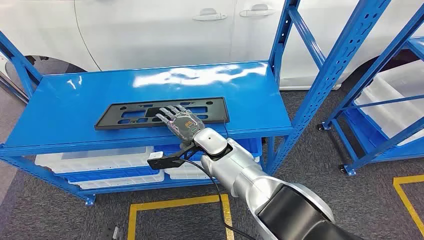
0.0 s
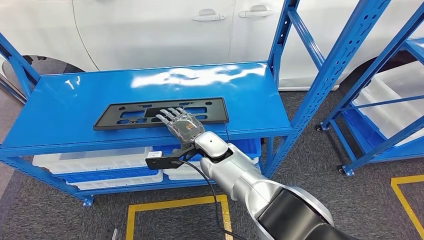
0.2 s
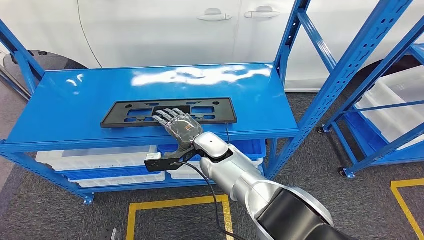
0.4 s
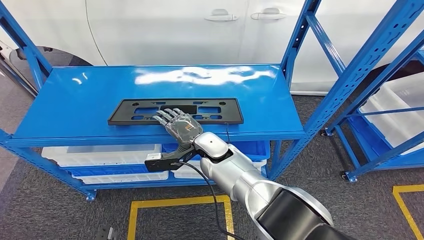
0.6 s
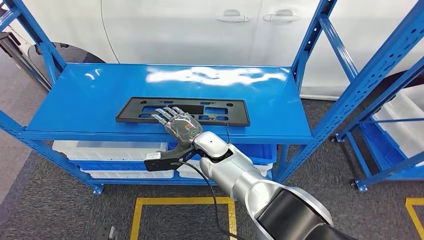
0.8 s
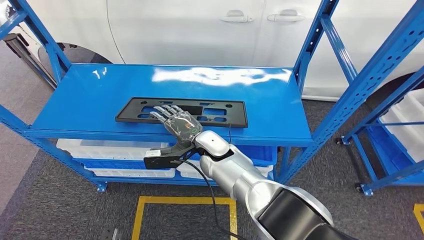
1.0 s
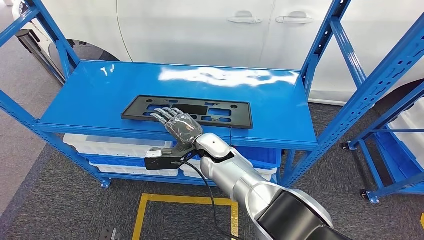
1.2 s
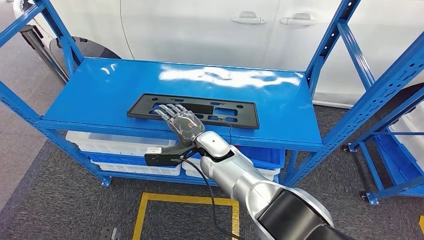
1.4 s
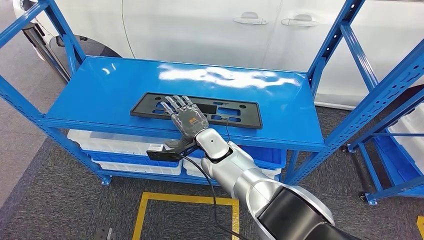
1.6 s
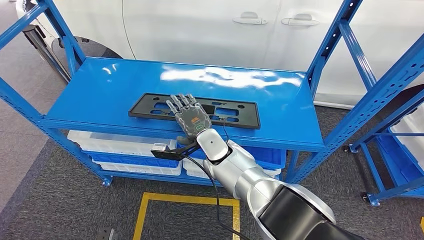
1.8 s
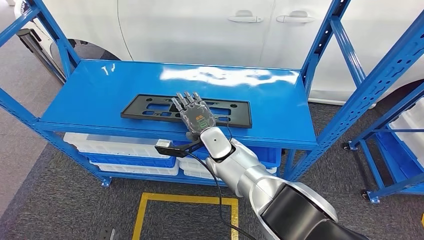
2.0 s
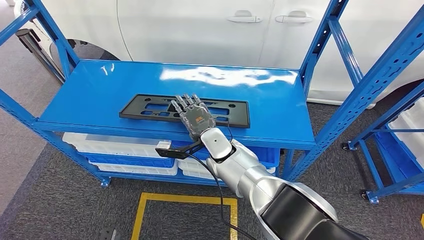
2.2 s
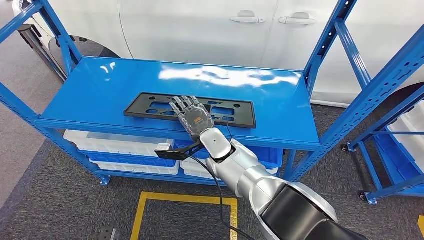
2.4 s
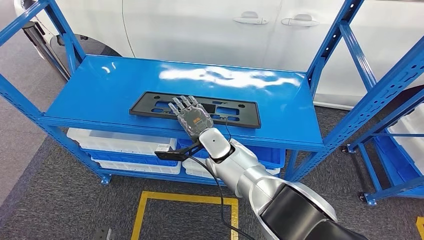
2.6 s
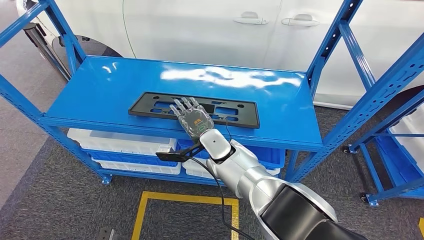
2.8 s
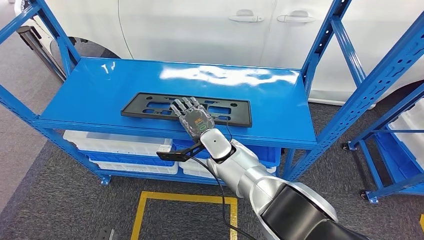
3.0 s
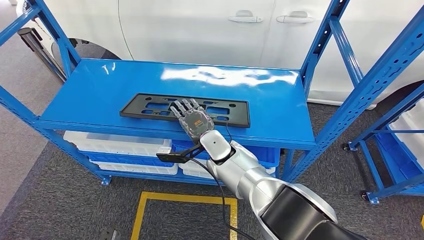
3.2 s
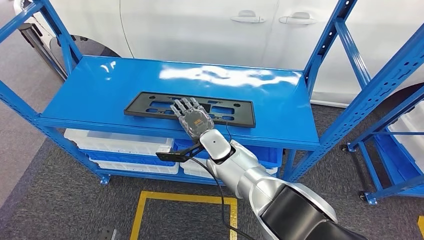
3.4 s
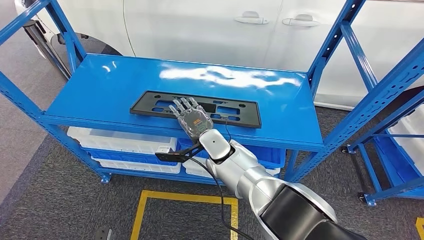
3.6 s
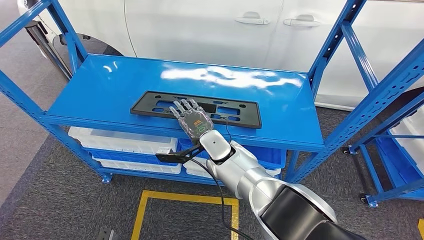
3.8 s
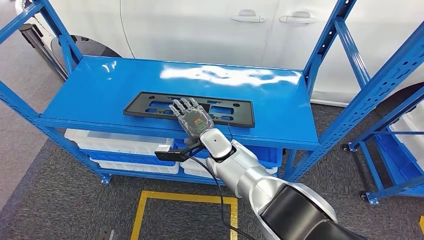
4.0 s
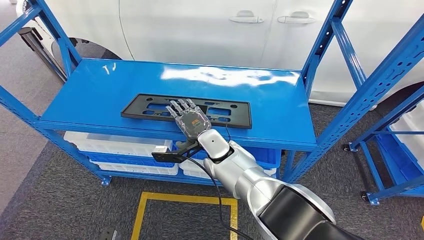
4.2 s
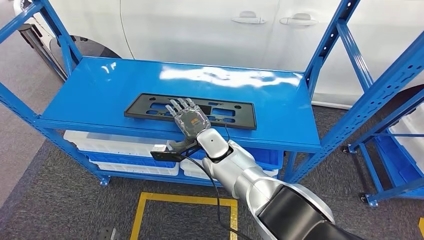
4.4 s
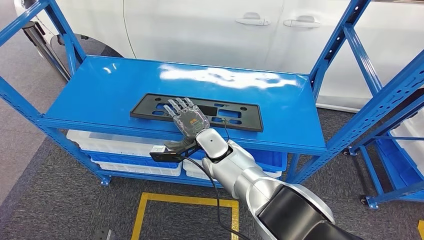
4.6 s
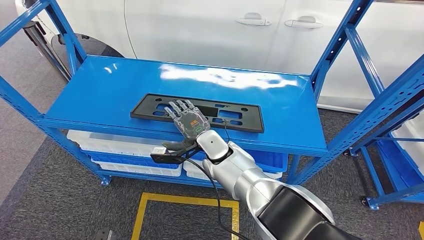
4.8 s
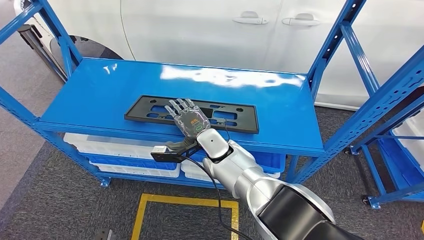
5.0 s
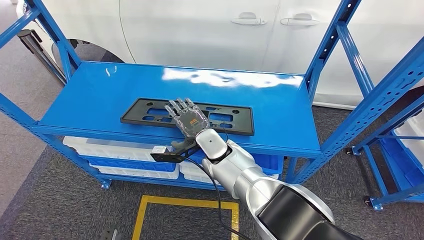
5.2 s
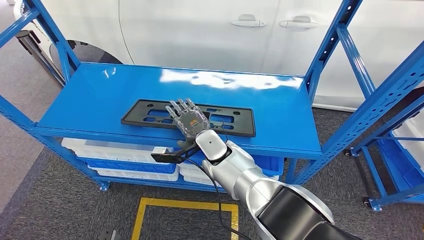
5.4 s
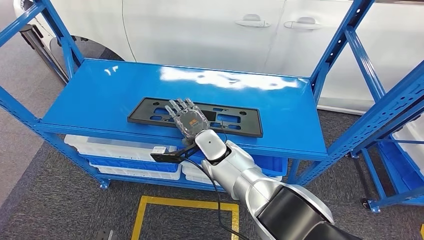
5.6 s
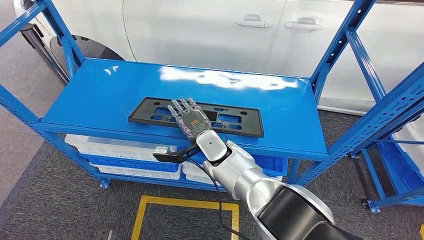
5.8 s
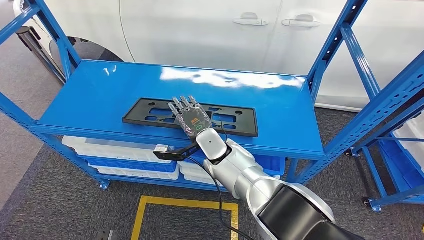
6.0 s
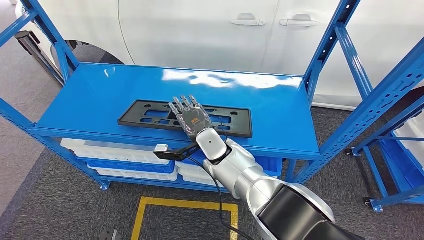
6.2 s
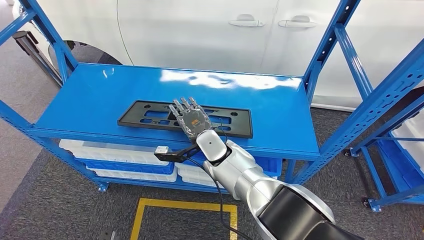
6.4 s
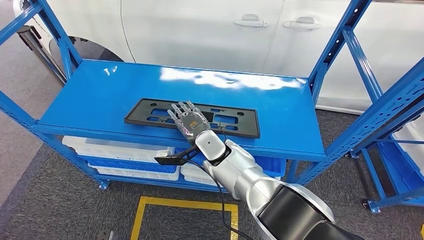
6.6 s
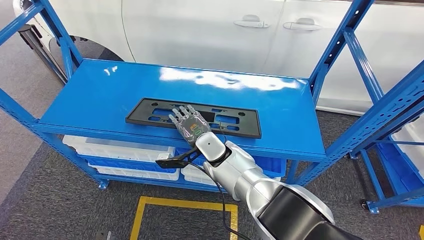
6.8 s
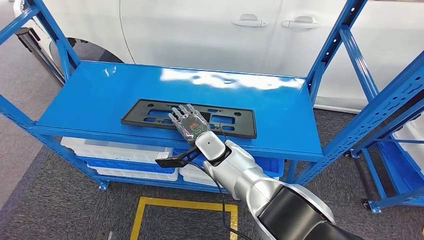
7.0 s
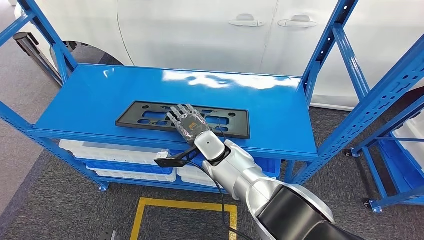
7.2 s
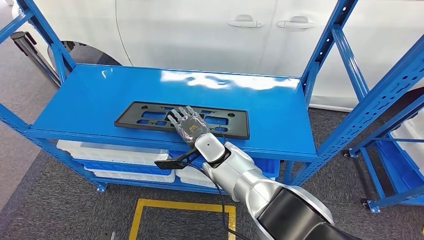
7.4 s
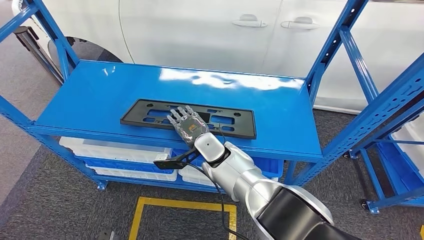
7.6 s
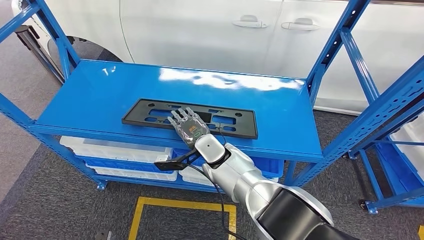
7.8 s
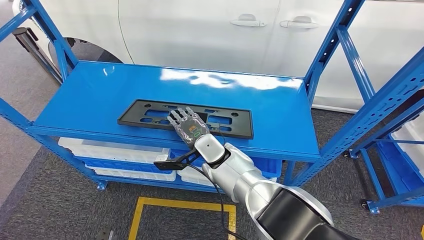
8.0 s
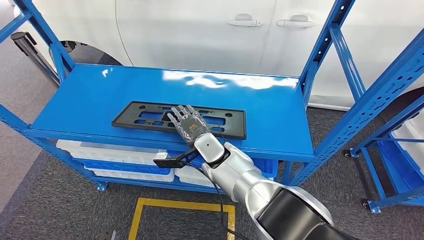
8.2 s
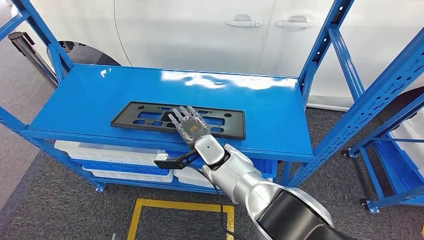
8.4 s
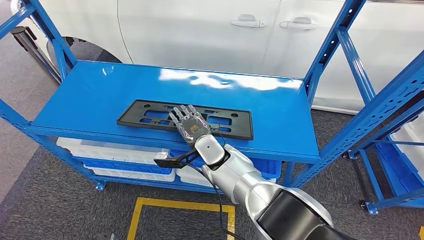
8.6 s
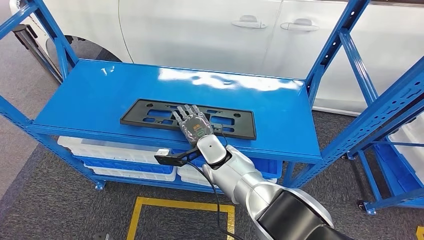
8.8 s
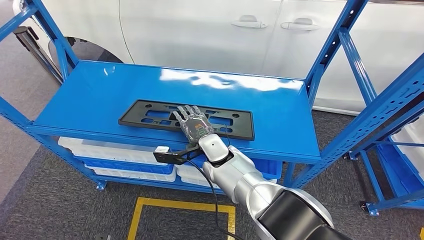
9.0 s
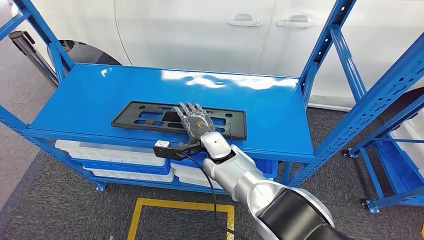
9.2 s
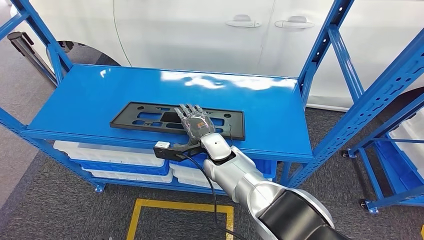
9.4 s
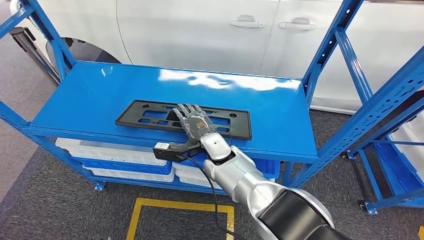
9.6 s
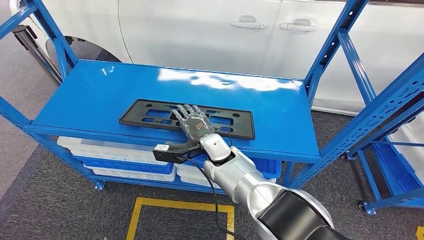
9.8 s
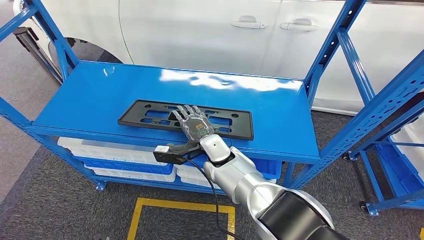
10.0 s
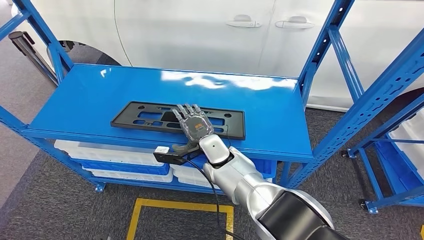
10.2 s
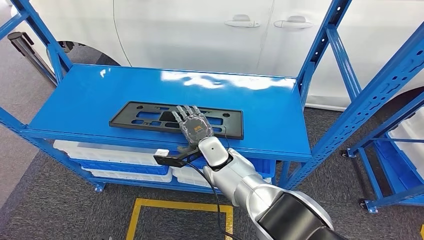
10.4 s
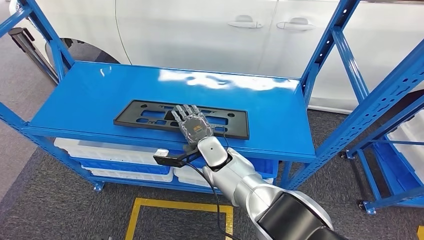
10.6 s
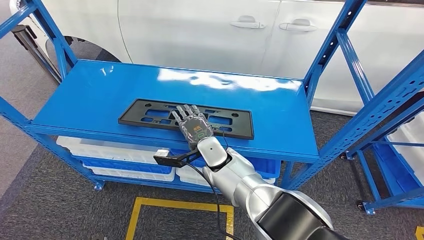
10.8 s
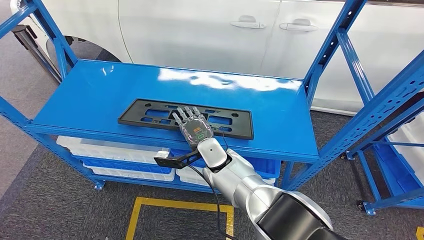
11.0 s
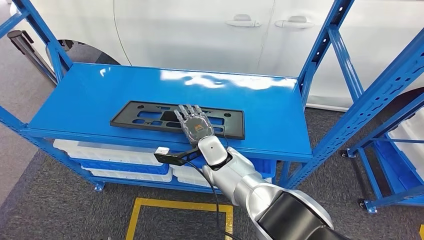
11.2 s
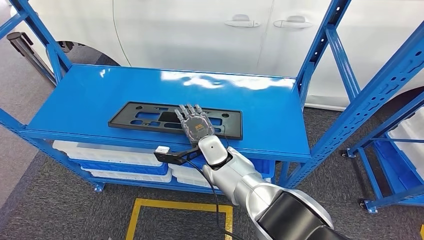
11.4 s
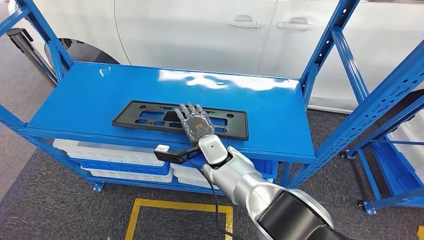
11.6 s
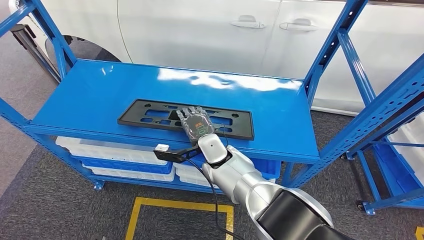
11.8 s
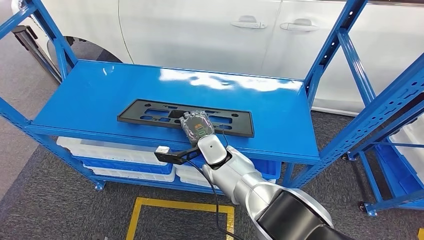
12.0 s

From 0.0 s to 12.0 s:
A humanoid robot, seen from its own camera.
Step, from 0.0 s to 6.2 s: Pick up the large parts from the shelf.
From 3.0 s to 4.4 s: The hands stay close to where they were, moving slightly.
From 6.0 s to 9.0 s: The hands stay close to where they were, moving slightly.

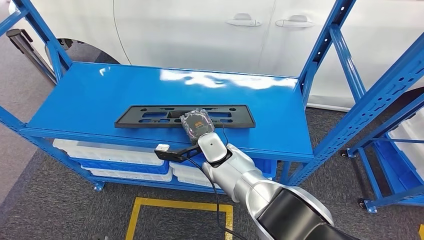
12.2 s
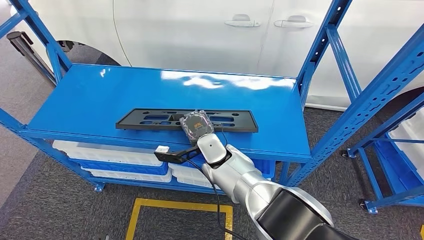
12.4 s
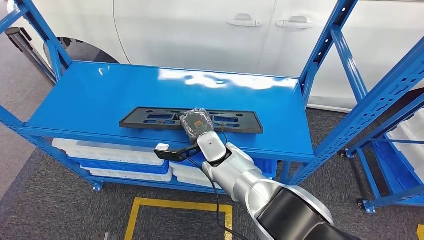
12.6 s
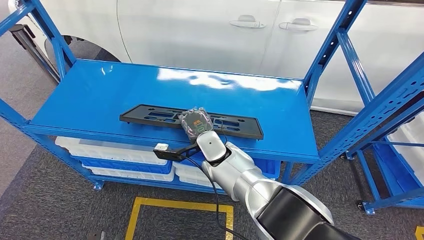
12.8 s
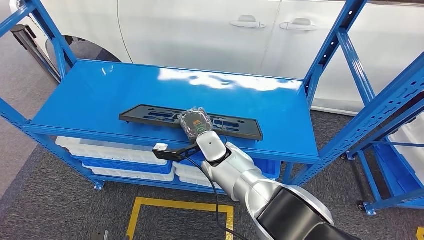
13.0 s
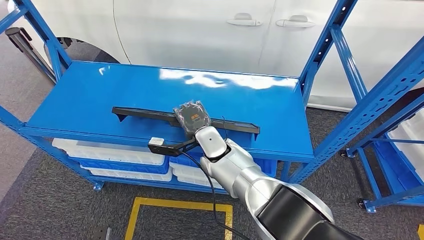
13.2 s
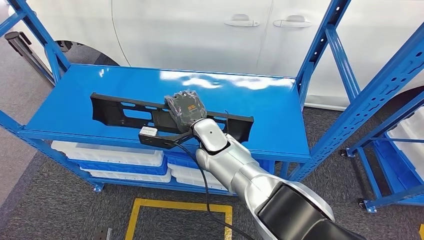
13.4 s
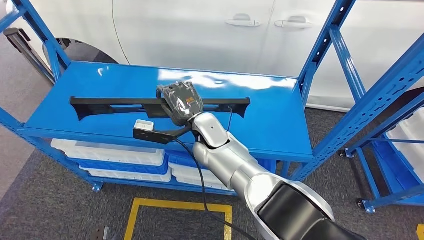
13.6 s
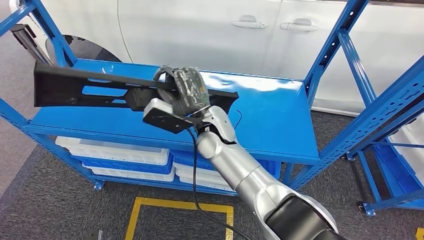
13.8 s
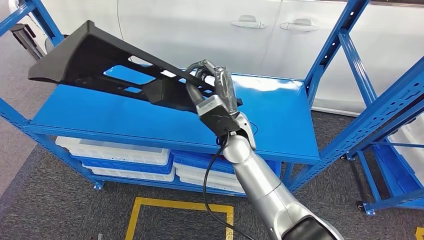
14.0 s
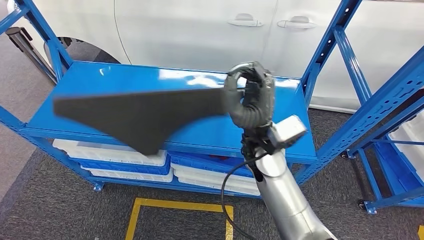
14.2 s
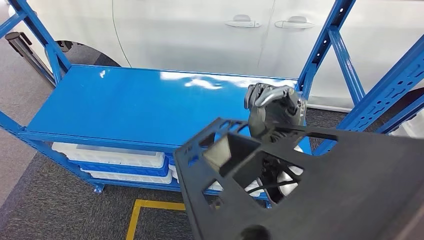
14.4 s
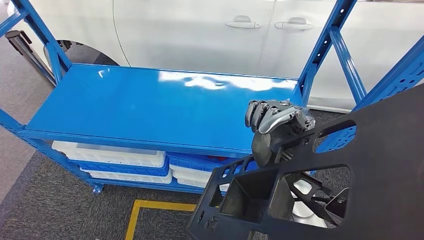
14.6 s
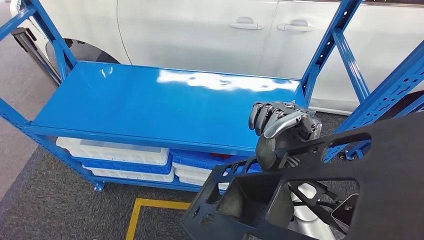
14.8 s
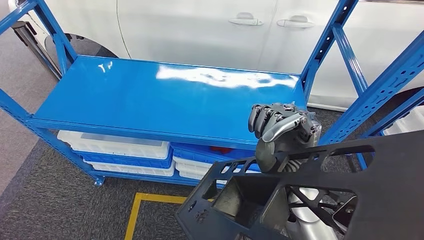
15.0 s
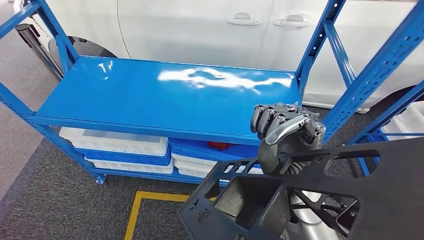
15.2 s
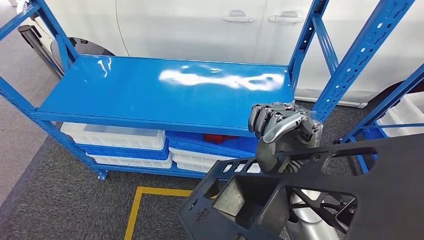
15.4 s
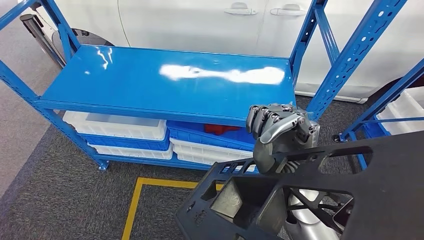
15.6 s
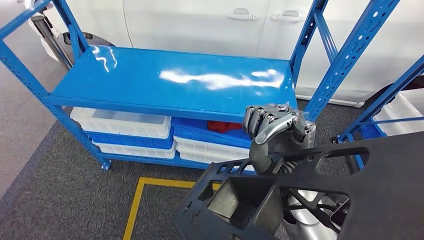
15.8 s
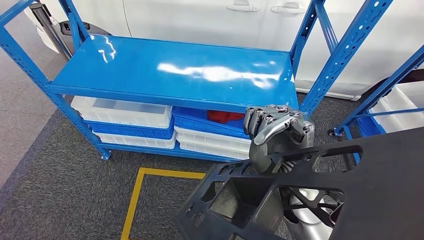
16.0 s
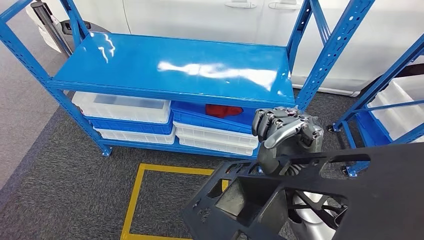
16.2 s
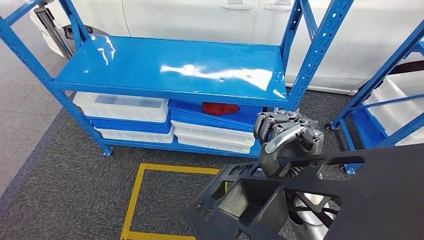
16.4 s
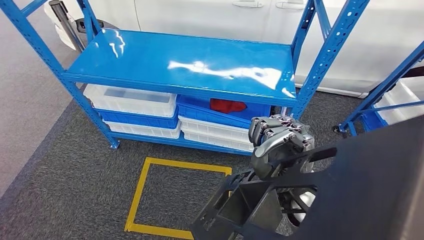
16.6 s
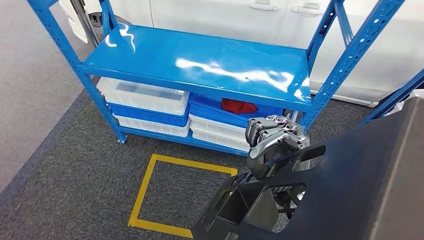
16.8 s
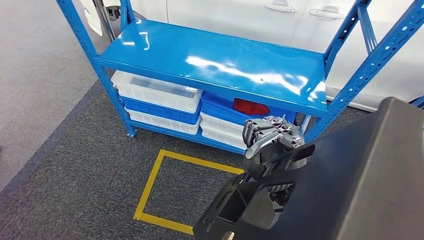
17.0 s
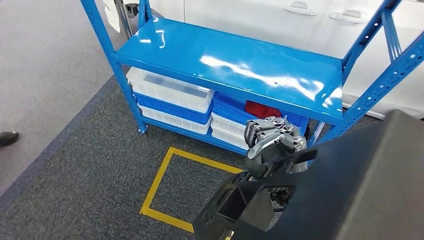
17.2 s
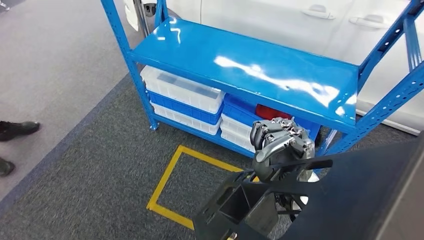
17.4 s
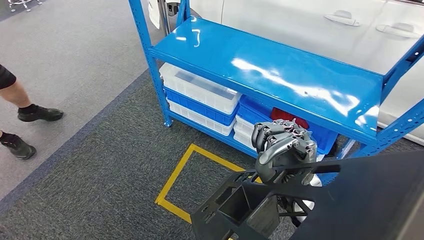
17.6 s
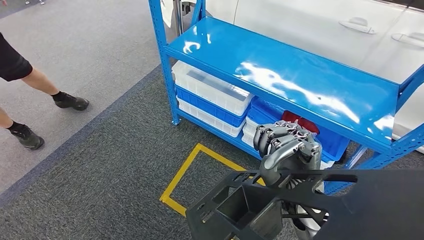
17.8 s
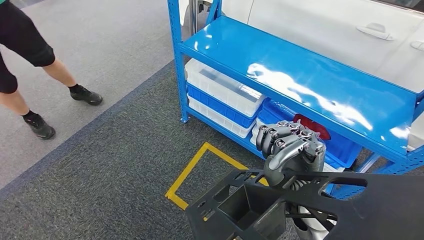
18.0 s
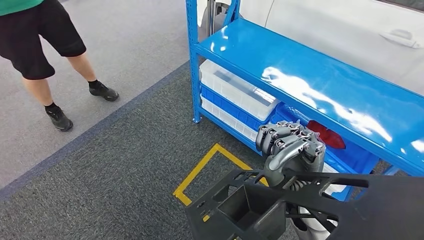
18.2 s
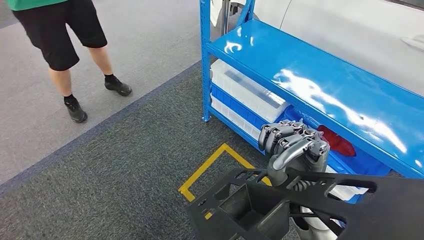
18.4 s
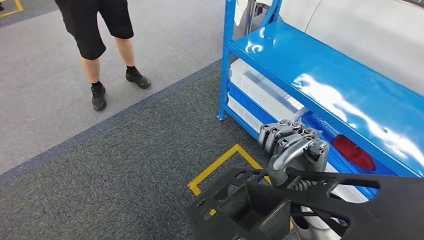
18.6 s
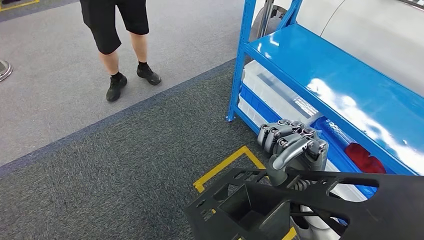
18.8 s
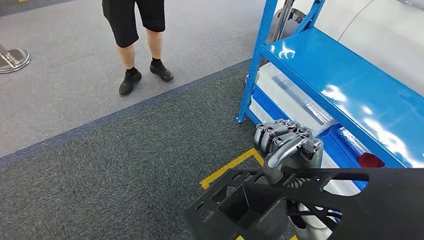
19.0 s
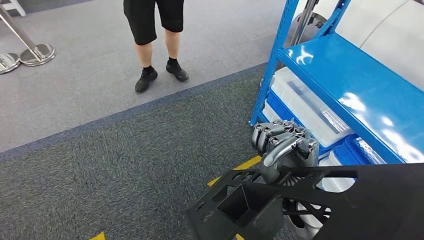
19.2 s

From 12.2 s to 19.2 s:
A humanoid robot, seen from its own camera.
From 12.2 s to 13.6 s: The right hand heads upward, covering some 5 cm.
